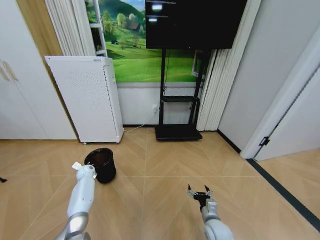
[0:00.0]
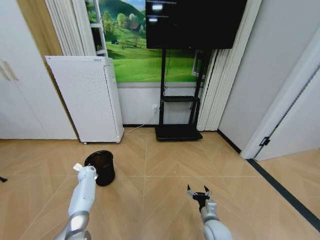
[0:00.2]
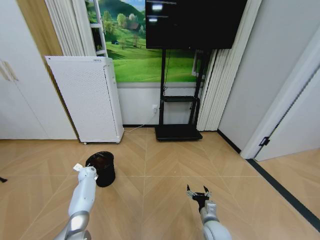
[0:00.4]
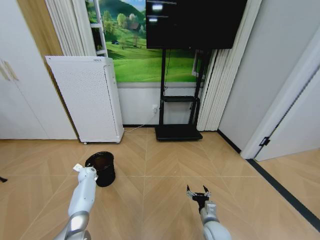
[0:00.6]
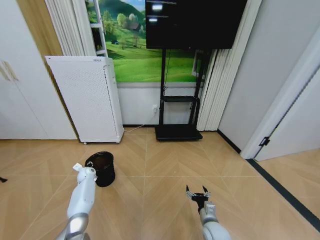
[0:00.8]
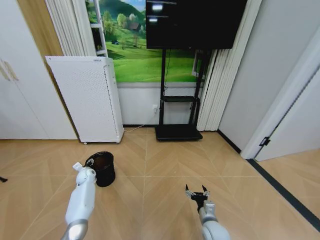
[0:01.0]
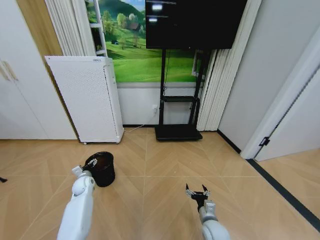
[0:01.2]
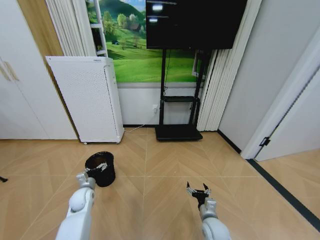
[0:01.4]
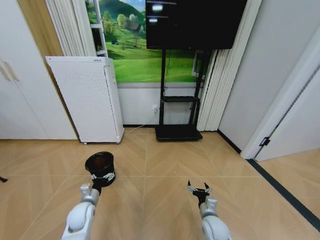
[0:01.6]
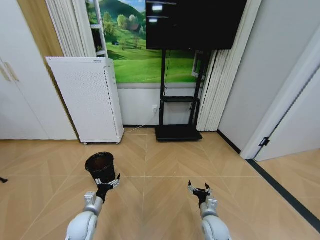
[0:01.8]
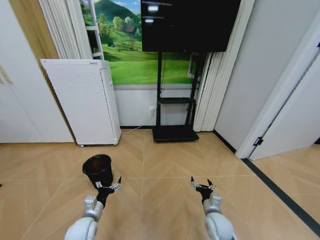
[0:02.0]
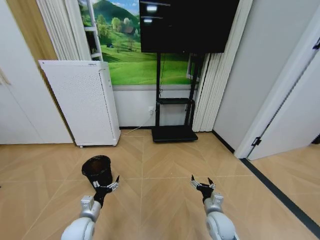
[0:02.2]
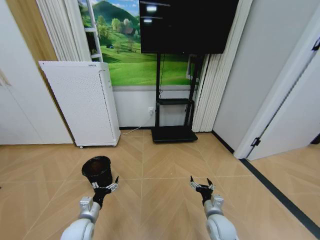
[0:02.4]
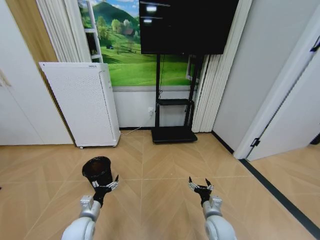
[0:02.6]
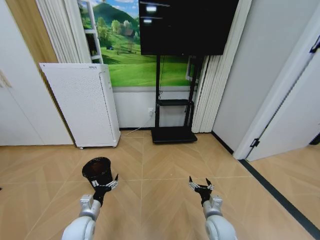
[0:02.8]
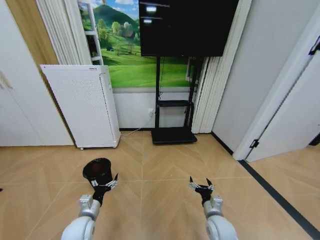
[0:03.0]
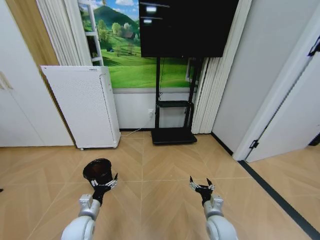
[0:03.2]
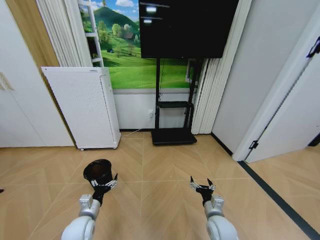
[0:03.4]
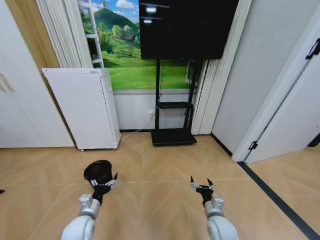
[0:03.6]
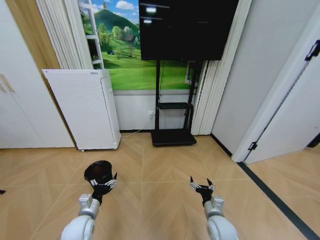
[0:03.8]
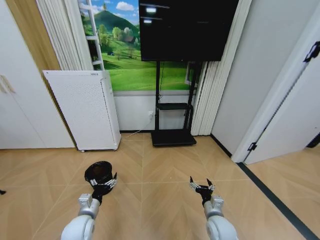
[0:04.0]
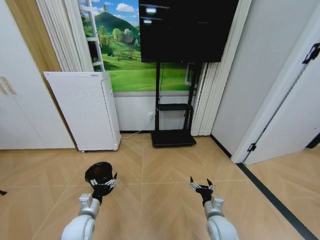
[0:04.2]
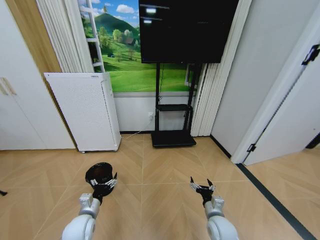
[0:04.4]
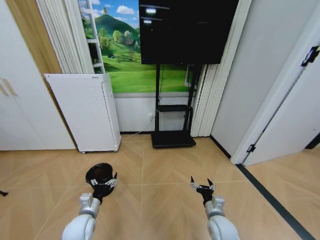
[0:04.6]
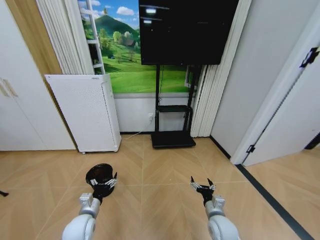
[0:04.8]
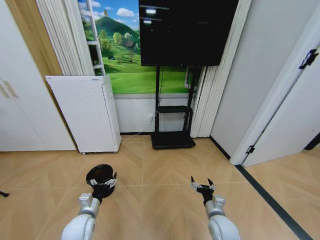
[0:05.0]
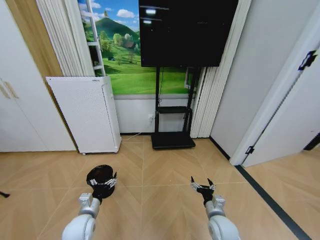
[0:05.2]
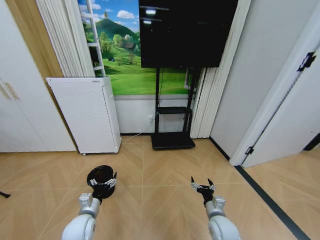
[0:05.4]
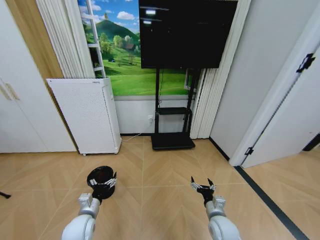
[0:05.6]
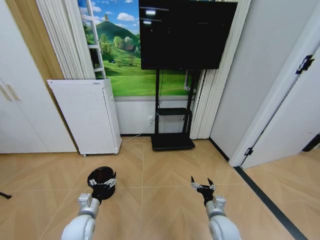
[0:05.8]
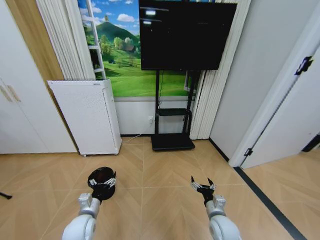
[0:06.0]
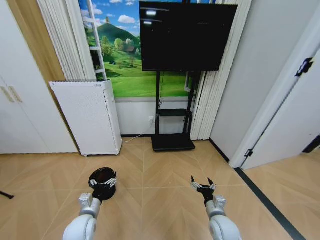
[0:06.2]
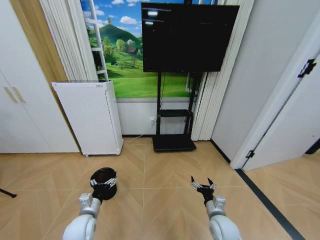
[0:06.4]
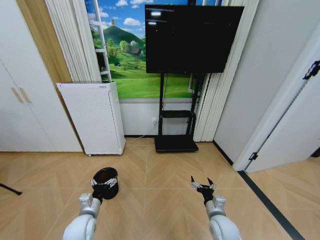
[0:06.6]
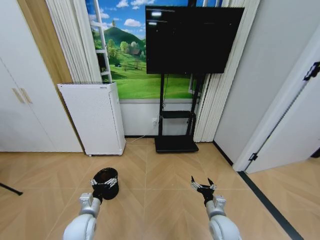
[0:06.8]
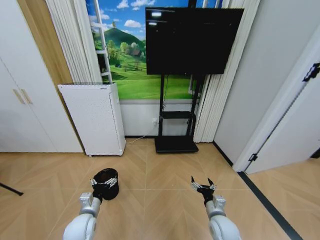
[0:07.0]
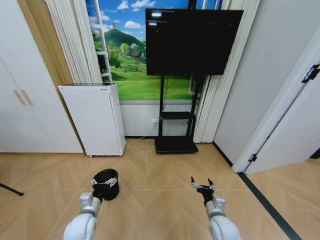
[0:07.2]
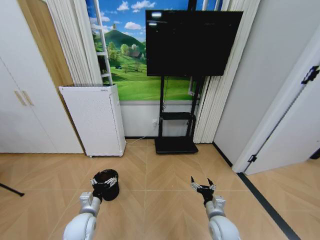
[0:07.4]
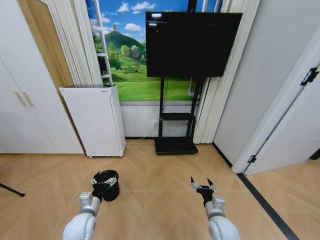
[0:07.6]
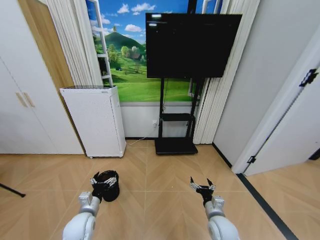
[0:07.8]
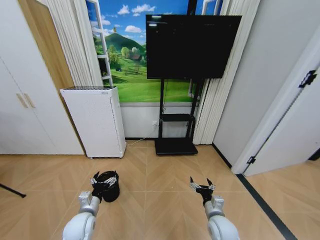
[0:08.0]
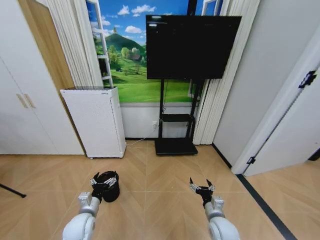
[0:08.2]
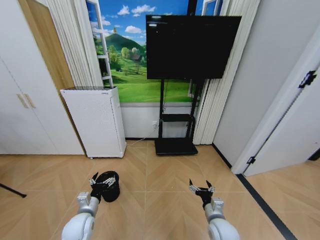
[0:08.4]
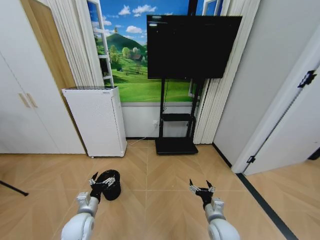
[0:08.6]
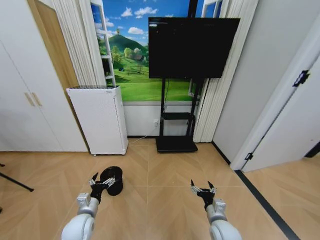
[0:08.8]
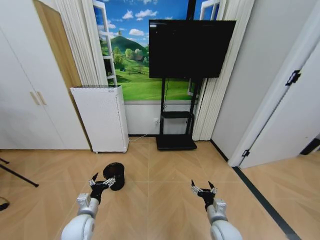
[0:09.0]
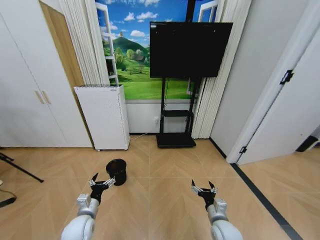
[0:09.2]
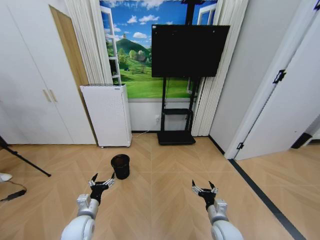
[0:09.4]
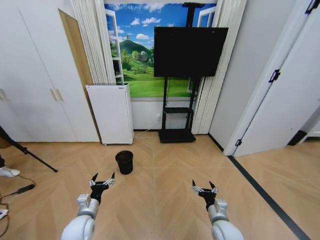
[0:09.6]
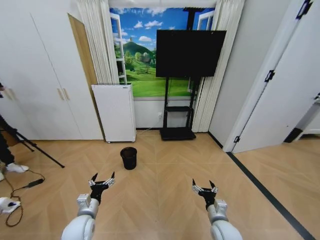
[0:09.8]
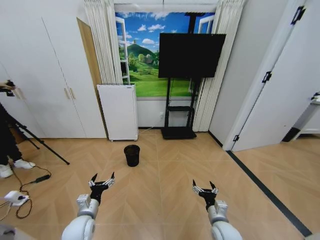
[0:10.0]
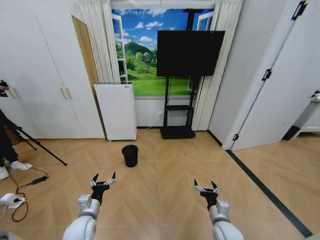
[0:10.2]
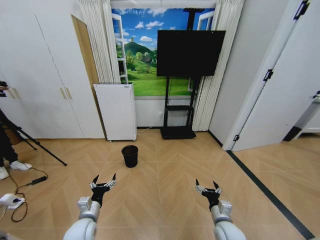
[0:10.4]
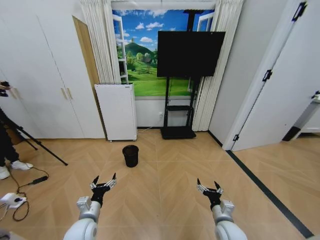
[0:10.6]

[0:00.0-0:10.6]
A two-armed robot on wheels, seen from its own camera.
Task of the whole recording: Pick up the trash bin and place the garbage on the floor into it.
0:00.0 to 0:01.6: The left gripper heads backward and to the right, covering approximately 25 cm, and opens up.
0:01.6 to 0:03.0: The left gripper moves backward, some 5 cm.
0:03.0 to 0:04.6: The two grippers keep their place.
0:04.6 to 0:06.0: Both grippers stay about where they are.

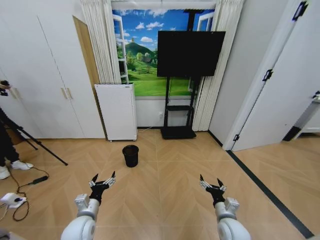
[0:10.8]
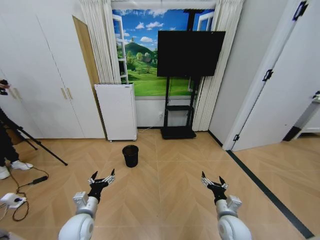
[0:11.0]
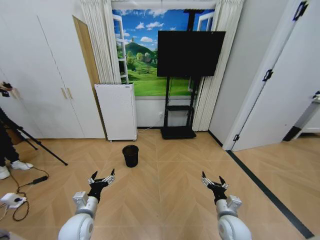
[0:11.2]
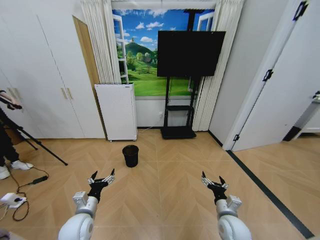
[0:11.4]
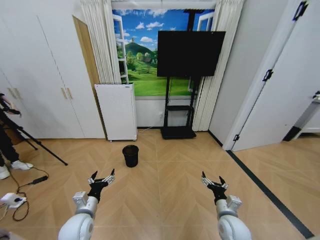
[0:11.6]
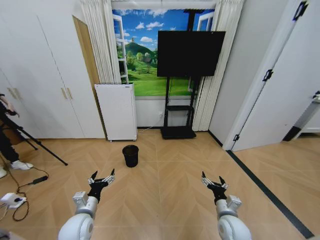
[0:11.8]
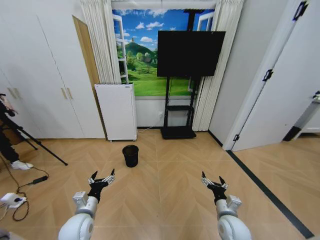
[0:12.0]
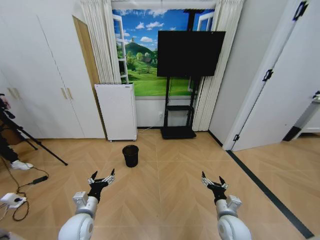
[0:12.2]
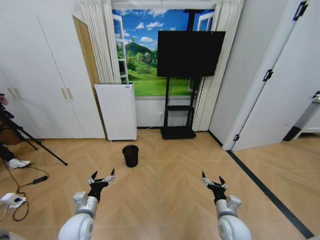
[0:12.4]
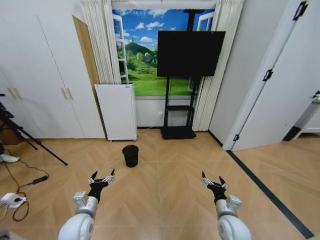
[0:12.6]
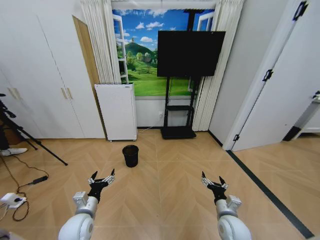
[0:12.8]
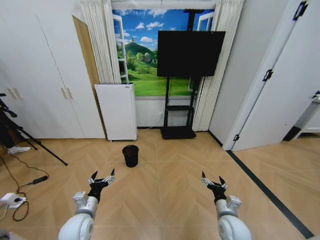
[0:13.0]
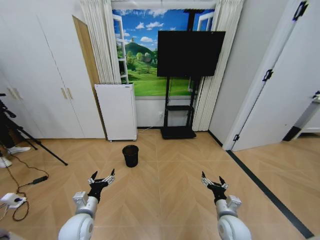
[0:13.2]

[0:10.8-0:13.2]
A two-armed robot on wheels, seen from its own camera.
Task of the whole recording: Pick up the trash bin and place the garbage on the floor into it.
0:10.8 to 0:12.0: The grippers move only a little.
0:12.0 to 0:13.2: Neither gripper changes place.

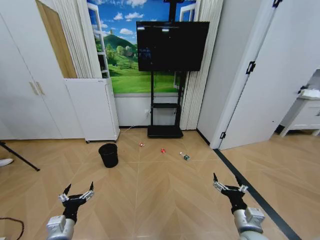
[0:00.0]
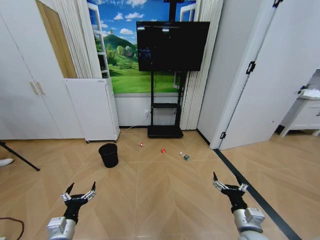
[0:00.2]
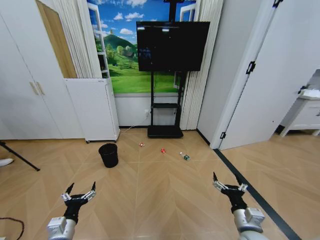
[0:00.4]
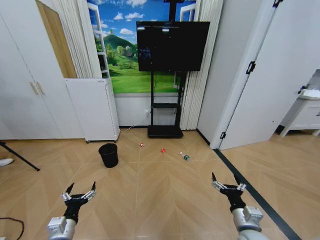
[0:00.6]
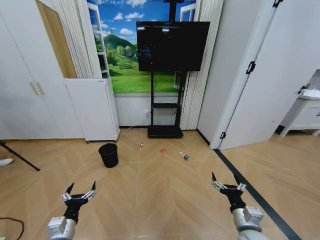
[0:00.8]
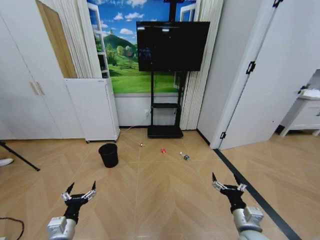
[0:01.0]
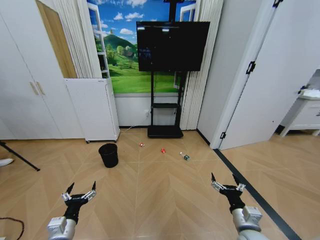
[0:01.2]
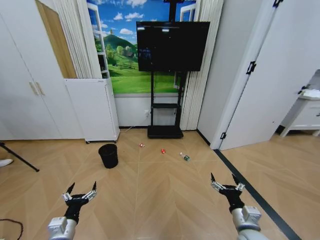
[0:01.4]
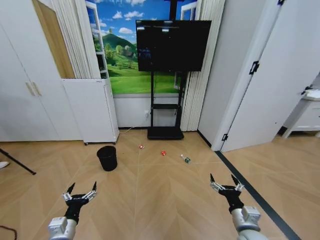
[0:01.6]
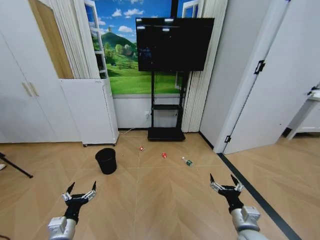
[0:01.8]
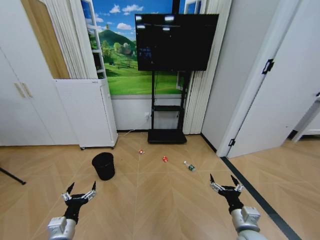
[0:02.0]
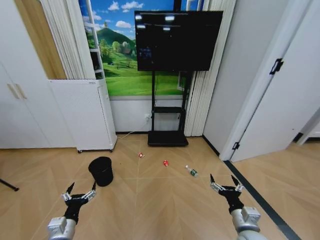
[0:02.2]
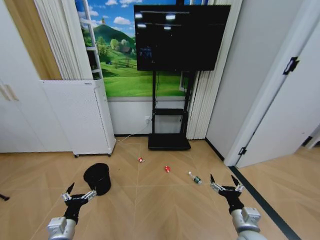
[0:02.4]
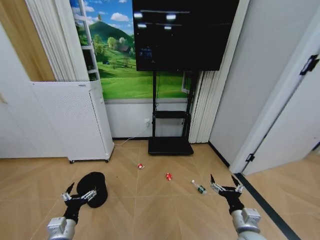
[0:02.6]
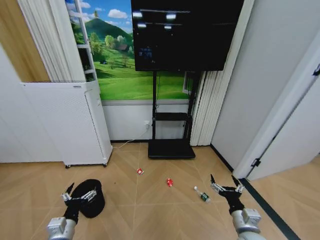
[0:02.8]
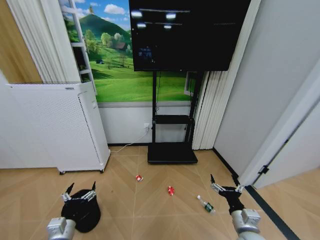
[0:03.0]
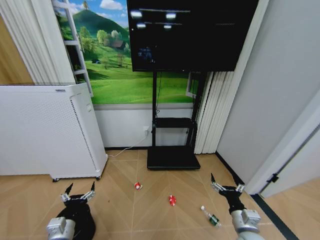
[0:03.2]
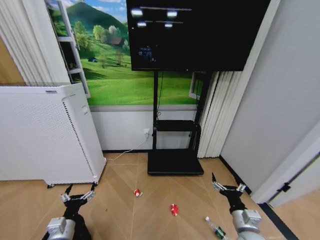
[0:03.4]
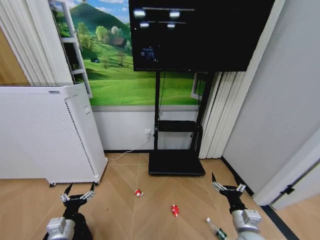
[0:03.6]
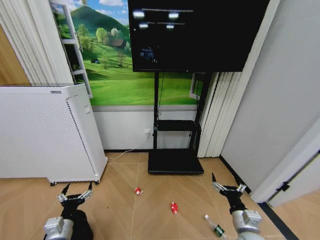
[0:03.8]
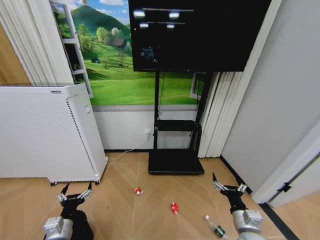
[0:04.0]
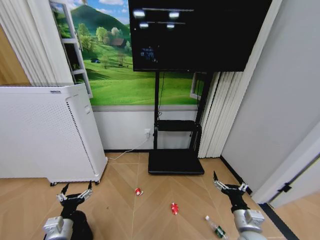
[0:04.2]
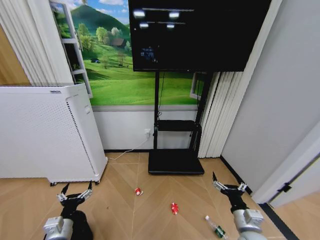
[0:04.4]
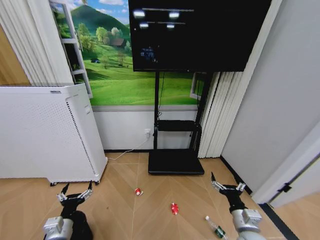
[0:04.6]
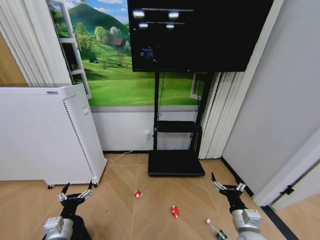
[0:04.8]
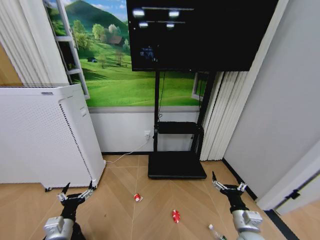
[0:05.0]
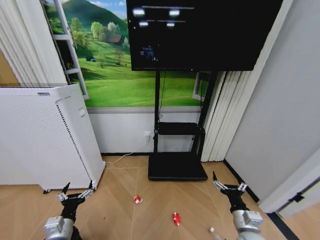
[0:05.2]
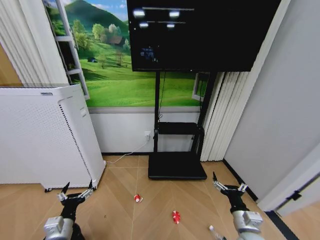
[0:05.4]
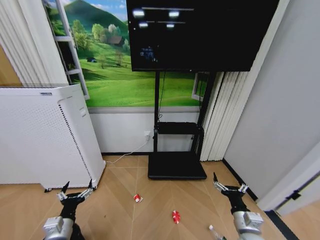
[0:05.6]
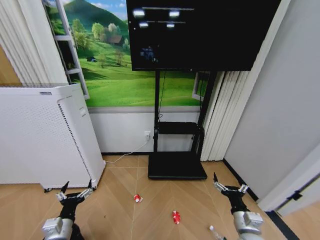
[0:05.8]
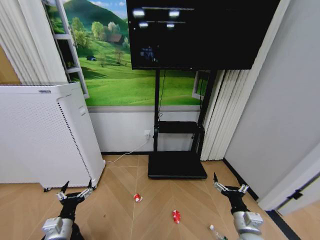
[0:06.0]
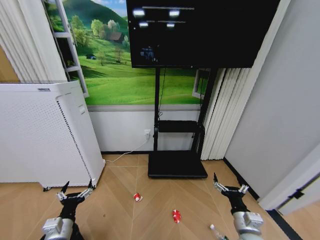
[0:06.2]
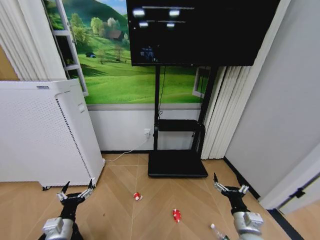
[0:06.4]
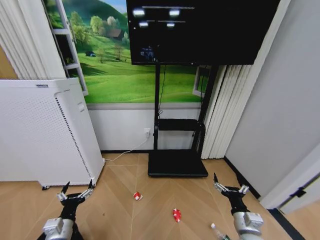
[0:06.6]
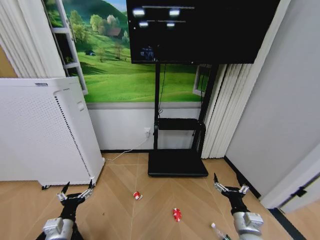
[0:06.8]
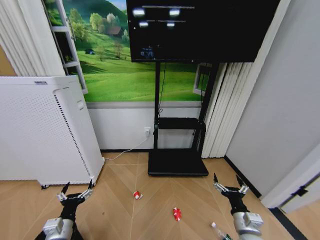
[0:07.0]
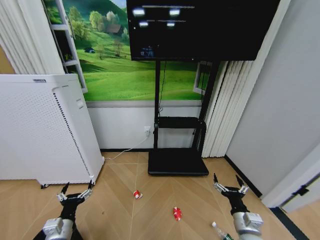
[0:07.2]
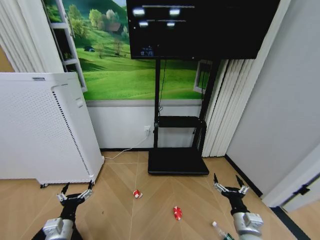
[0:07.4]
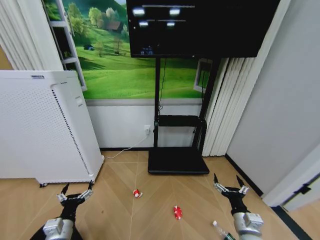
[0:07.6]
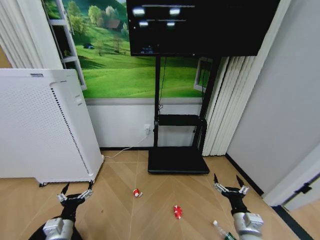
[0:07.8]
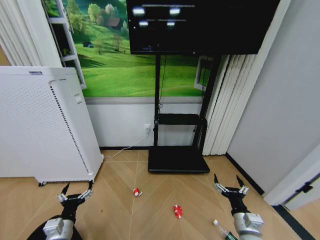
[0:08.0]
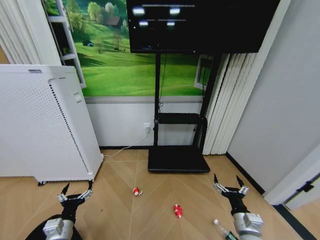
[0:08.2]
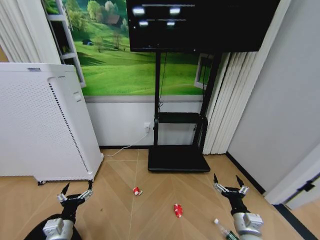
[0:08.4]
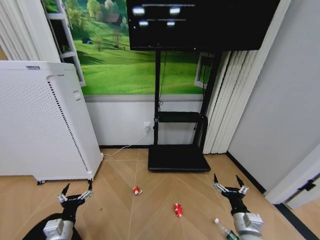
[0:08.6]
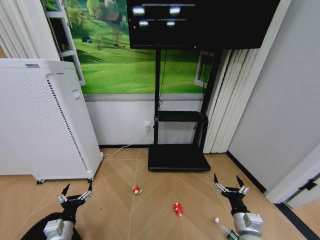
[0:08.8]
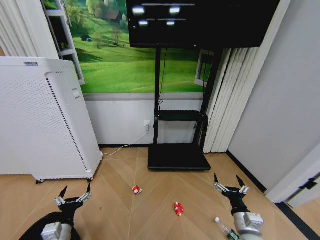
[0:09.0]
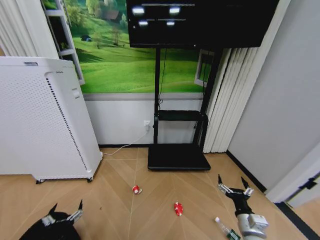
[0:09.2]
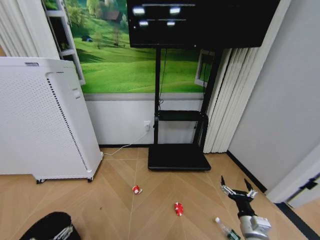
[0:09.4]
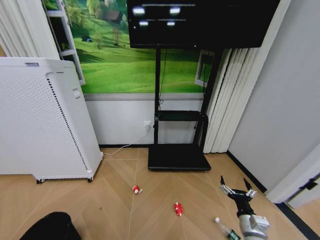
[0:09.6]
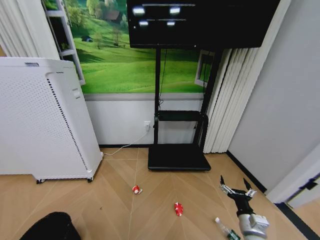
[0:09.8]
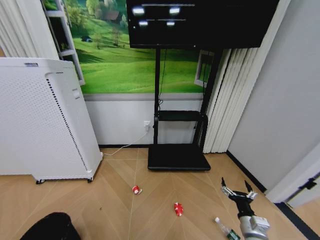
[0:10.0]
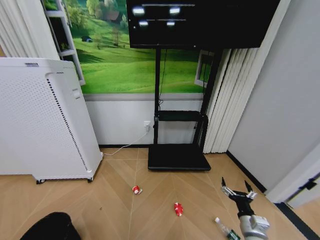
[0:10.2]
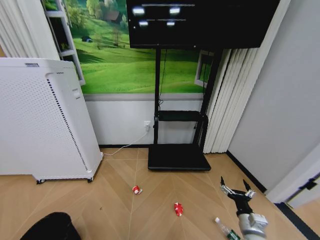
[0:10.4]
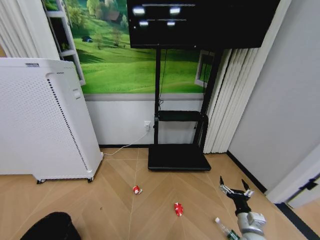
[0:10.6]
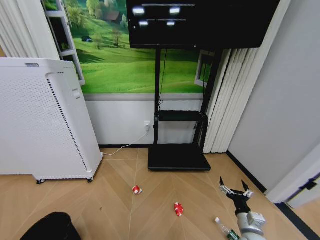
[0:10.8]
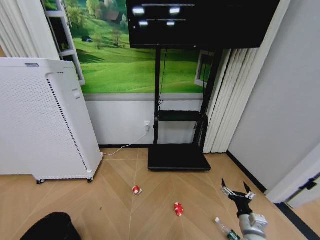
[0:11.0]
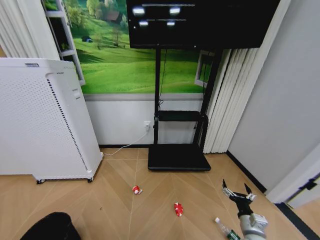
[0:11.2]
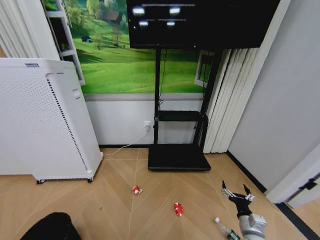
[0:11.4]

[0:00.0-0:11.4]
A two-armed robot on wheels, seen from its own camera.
Task of the whole recording: Pick up the trash bin and place the garbage on the floor into it.
0:04.2 to 0:08.6: Both grippers stay about where they are.
0:08.6 to 0:10.0: The left gripper shifts roughly 15 cm backward.
